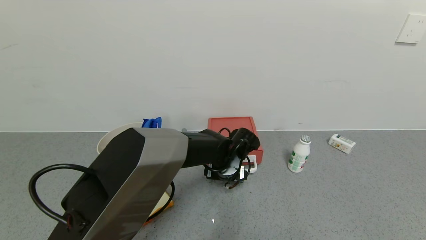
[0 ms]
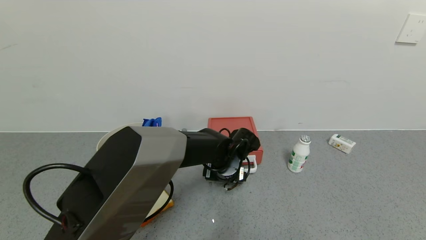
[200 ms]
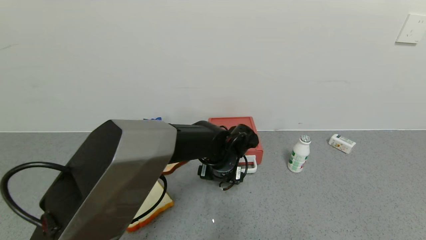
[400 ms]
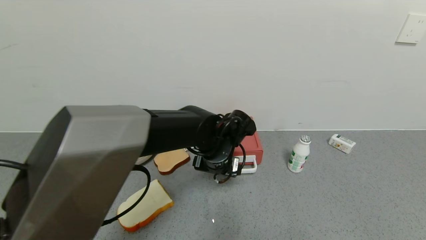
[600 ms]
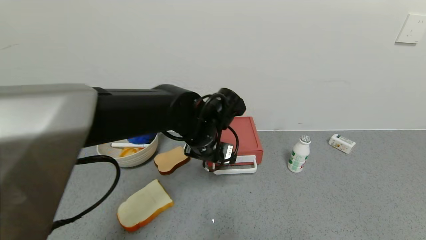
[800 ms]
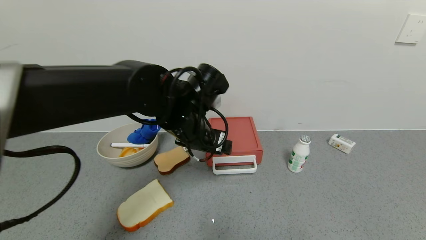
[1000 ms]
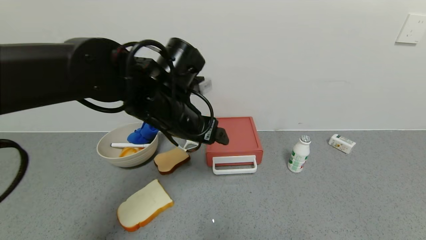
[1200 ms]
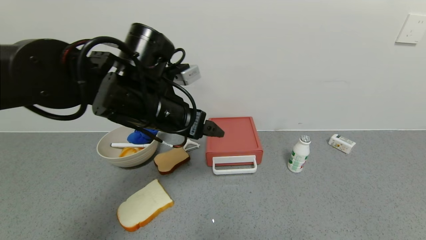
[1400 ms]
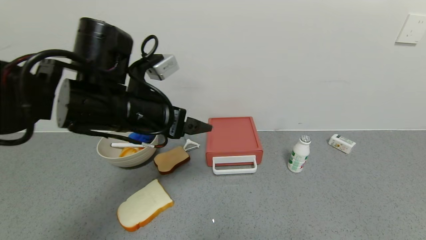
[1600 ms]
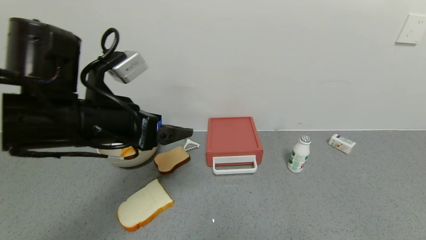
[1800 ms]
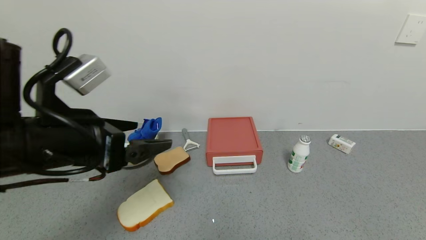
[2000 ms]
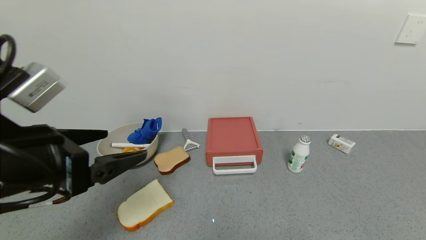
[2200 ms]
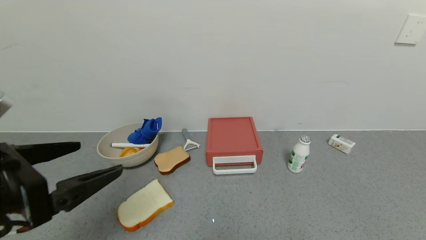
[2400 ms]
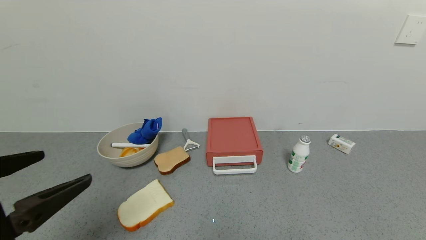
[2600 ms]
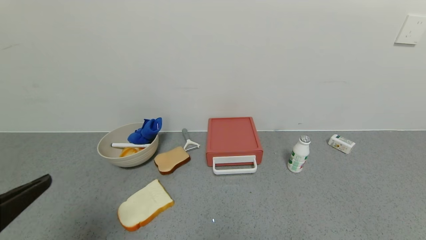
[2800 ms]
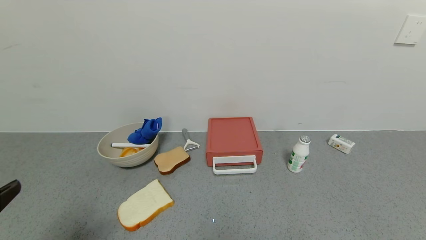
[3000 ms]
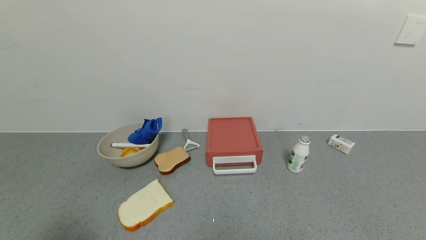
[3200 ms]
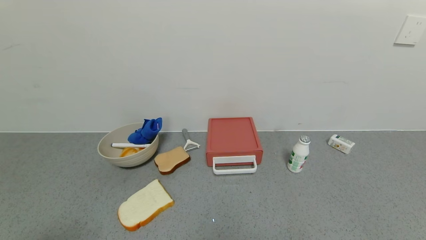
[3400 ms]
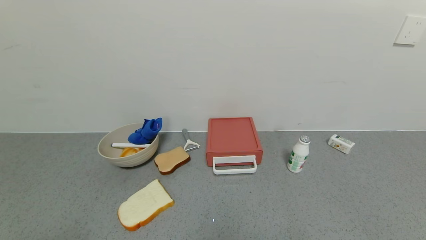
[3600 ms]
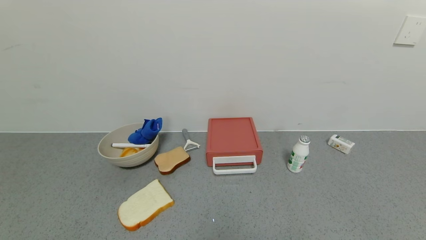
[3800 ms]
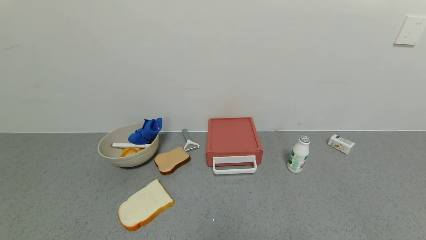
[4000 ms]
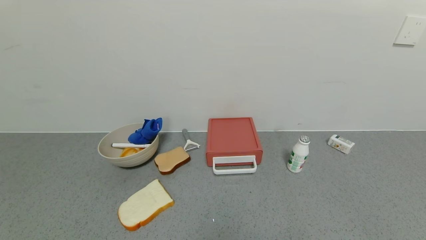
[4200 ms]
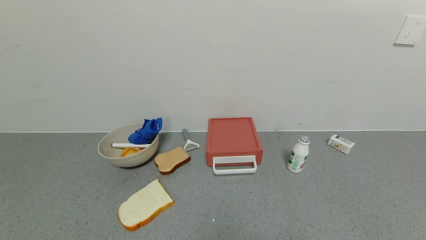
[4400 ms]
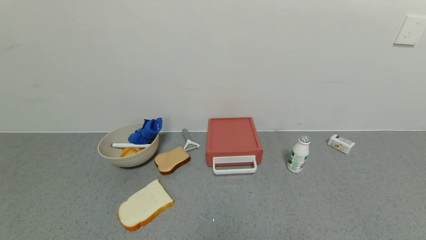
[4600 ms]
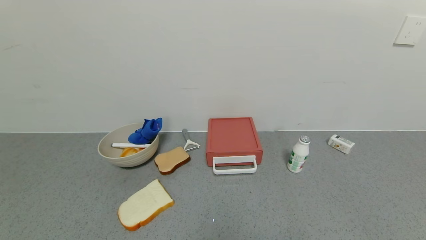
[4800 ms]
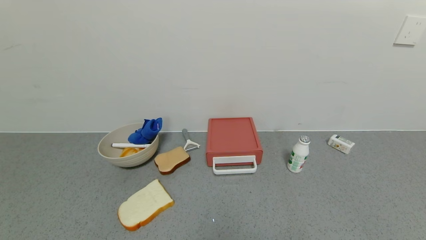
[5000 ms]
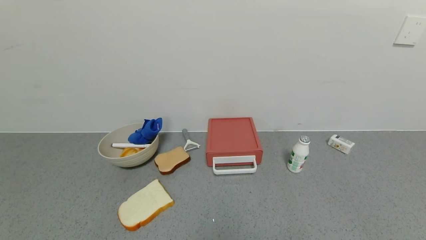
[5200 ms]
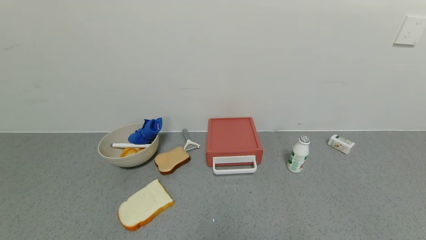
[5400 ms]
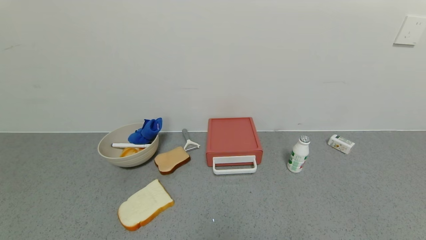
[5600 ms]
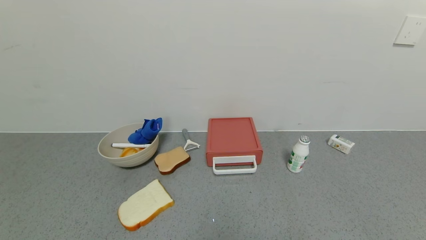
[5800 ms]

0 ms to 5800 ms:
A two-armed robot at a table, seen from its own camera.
Task of the whole recording: use the gripper to open the drawer and close the red drawer.
0 ms to 1400 ms: The left gripper is displaced upward and to the left by about 25 cm.
1400 ms to 2800 ms: The left gripper goes approximately 30 cm backward and to the left.
2800 ms to 4400 ms: The left gripper heads downward and backward, covering roughly 15 cm.
